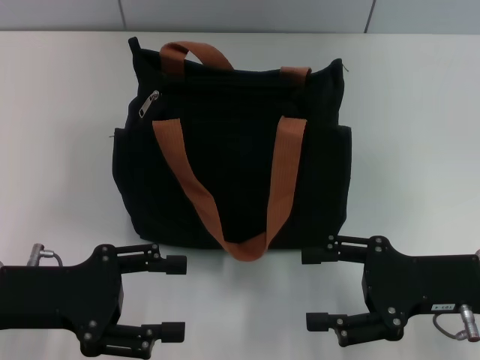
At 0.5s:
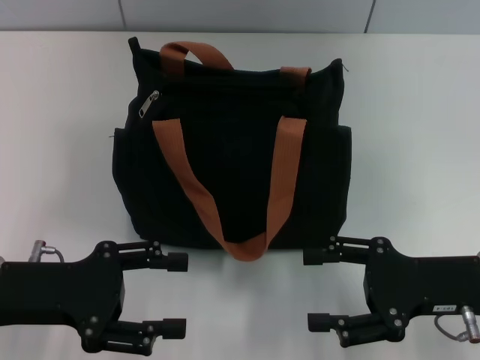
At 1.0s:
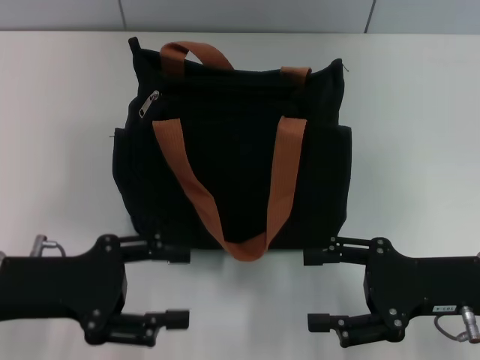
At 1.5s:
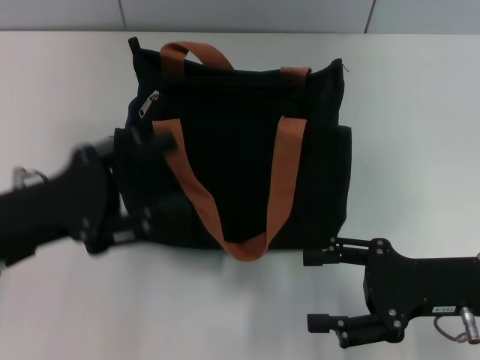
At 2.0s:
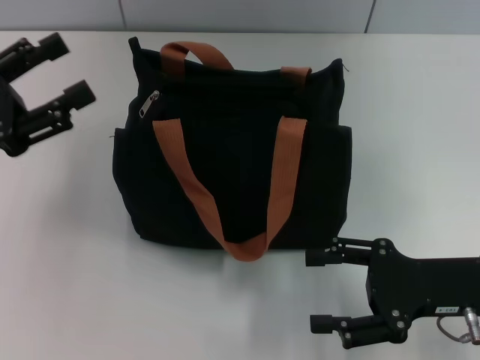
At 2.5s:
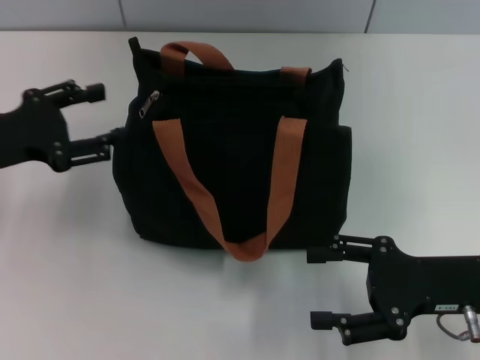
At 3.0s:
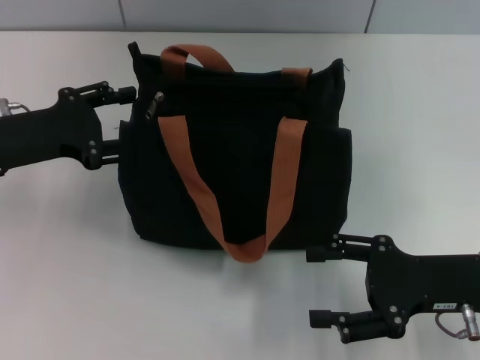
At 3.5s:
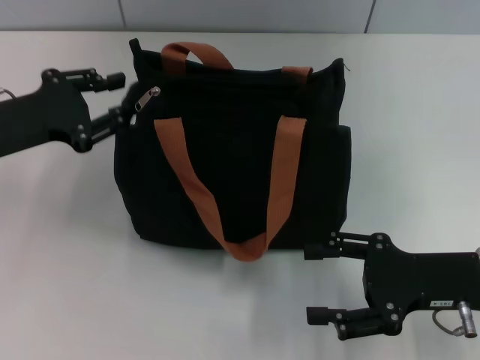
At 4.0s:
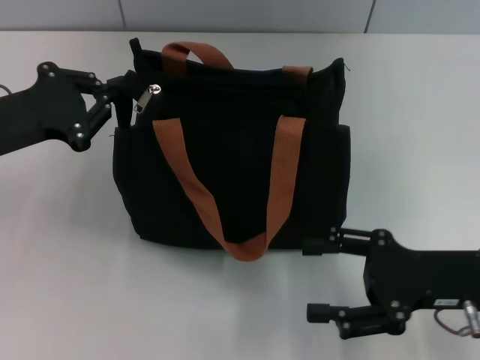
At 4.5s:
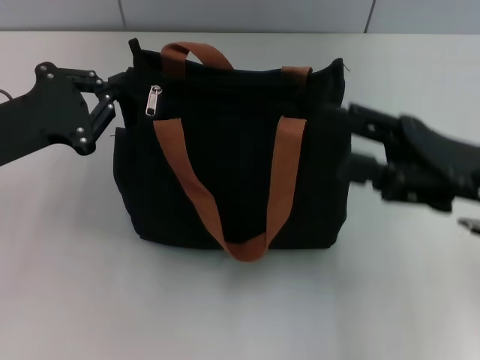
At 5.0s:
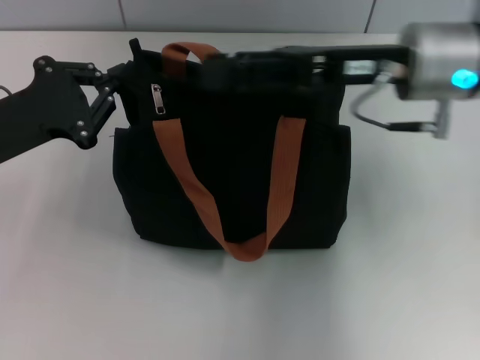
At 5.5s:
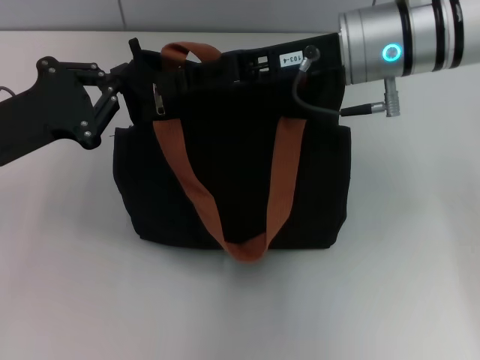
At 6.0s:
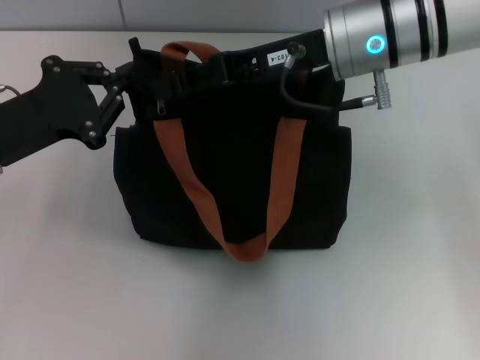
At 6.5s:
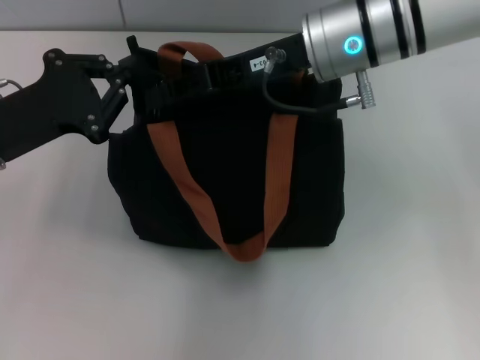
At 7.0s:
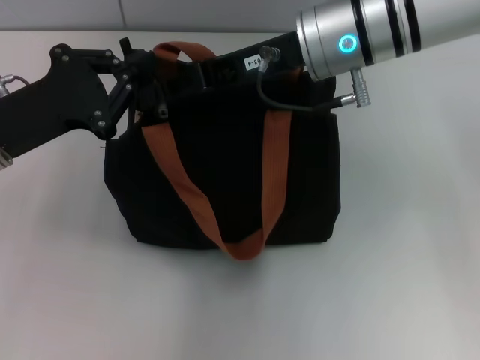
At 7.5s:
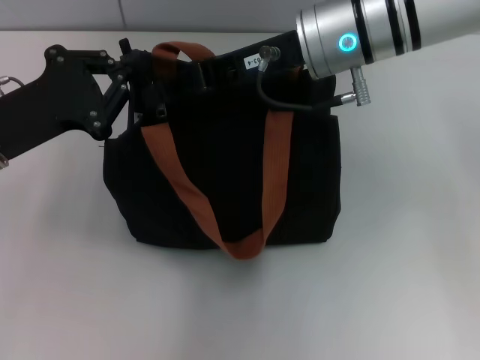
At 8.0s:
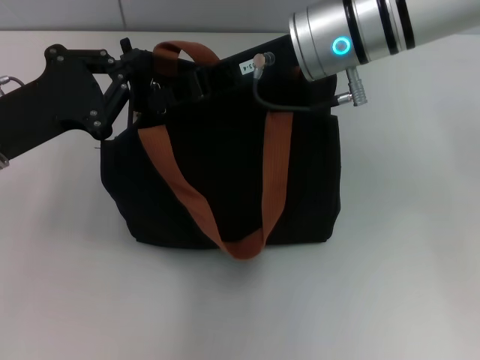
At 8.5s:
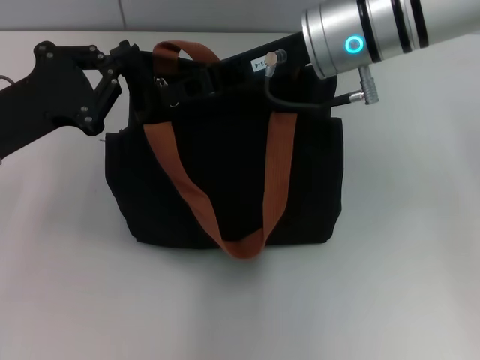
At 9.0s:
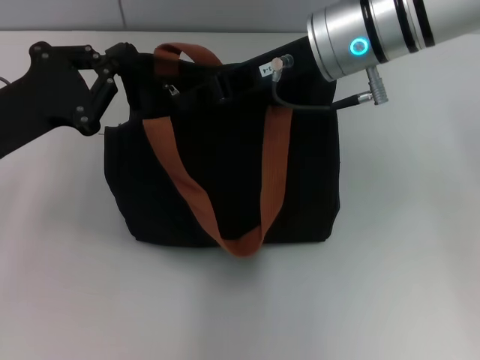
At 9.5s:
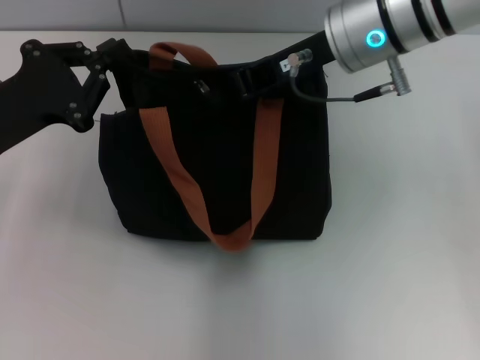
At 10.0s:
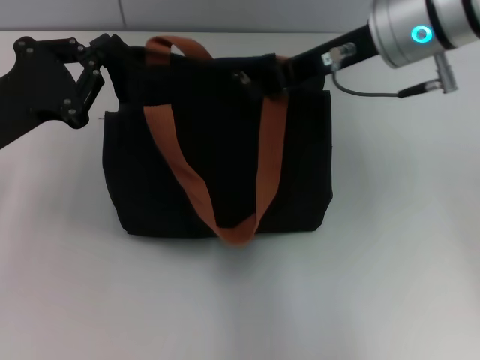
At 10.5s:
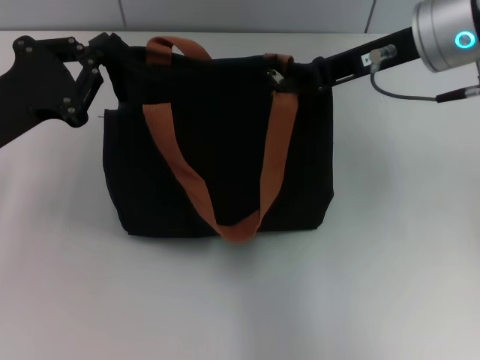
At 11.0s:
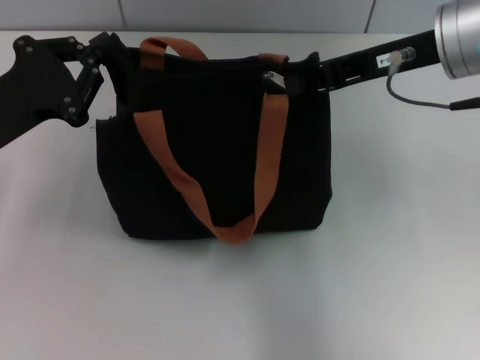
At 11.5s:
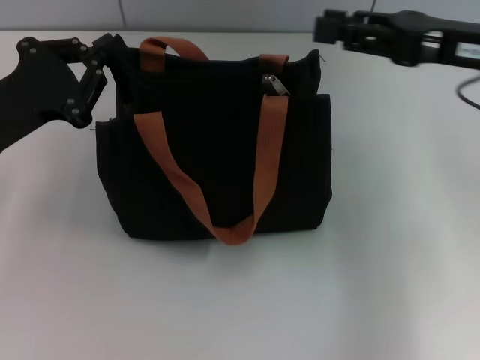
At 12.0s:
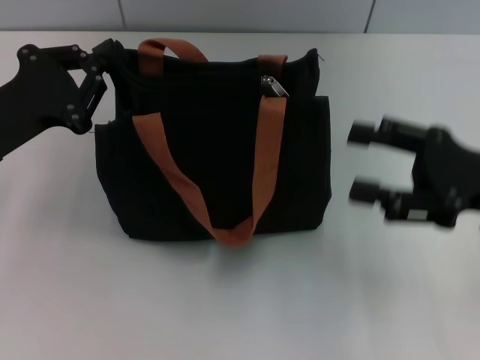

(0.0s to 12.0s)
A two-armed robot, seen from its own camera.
Step, 0.0s - 11.0s: Pull up the zipper with your right hand.
0.0s - 2.0s: The left gripper travels to the left and upward by roughly 5 cm.
2.0s - 4.0s: The left gripper moves about 5 cm, and closes.
4.0s - 6.0s: The right gripper shifts roughly 25 cm forward, to the left and upward, and closes up.
6.0s - 8.0s: The right gripper closes.
8.0s - 10.0s: The right gripper heads to the right, covering approximately 5 cm.
10.0s - 12.0s: The right gripper shifts approximately 20 cm to the right, backward and downward, and opens its fingers.

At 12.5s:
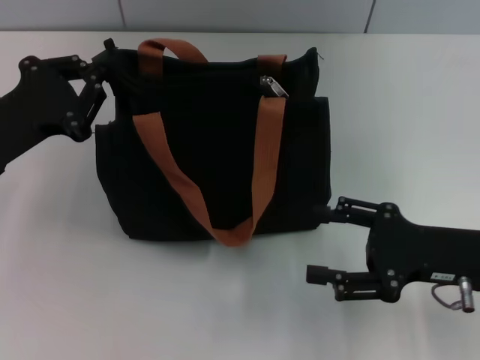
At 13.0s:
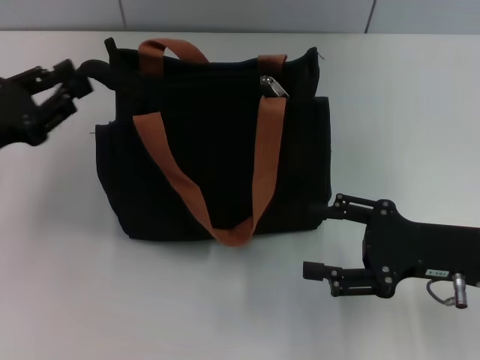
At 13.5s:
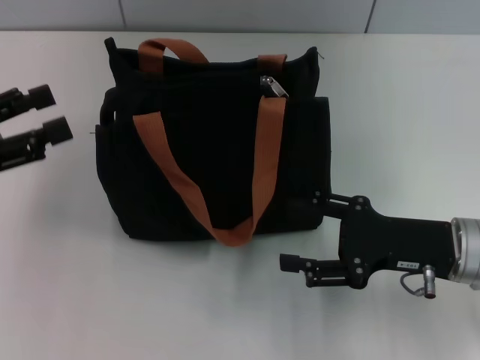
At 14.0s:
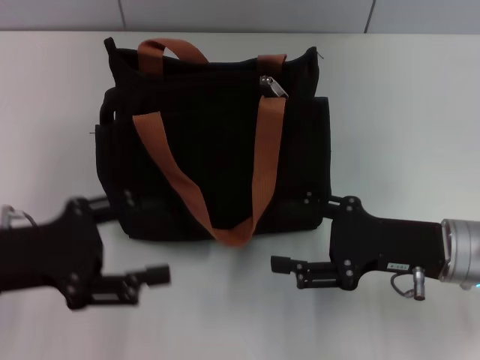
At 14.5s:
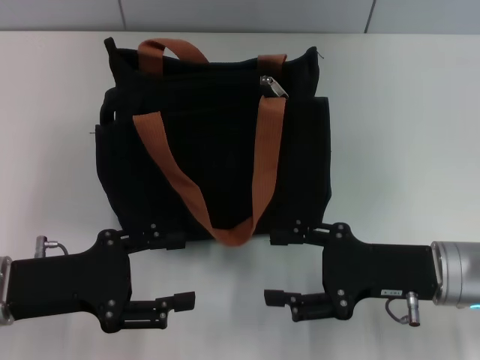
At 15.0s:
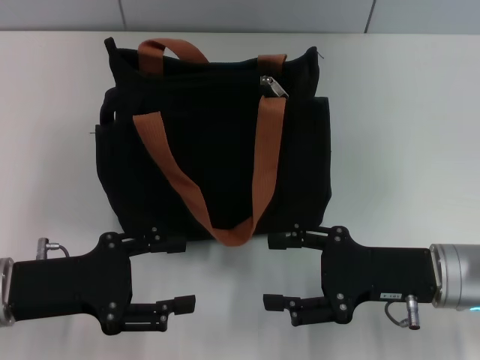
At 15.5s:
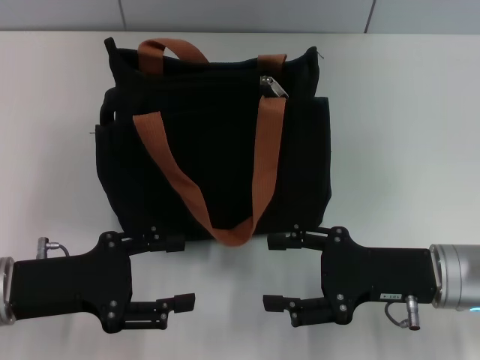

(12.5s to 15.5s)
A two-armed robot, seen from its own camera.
12.5s - 14.0s: The left gripper is displaced backward by approximately 5 cm, and opens.
14.0s - 15.5s: There are only small adjustments of the grippers.

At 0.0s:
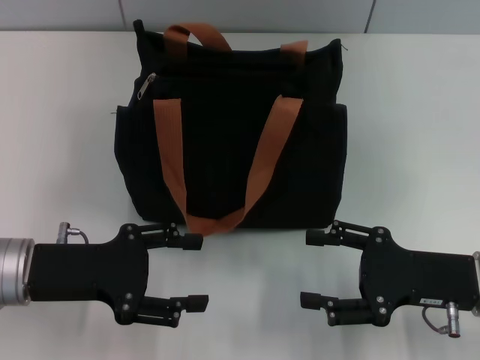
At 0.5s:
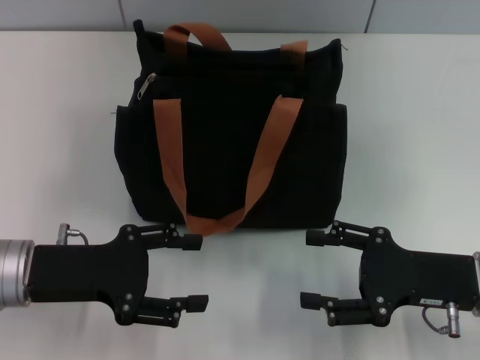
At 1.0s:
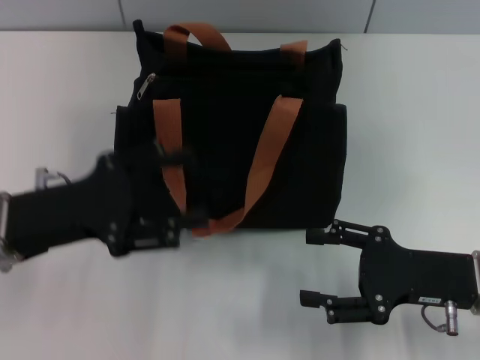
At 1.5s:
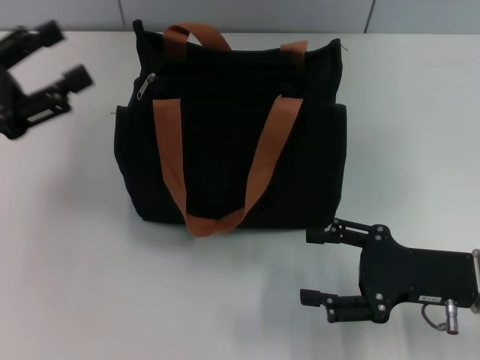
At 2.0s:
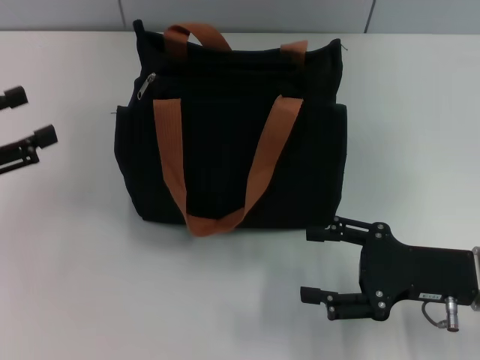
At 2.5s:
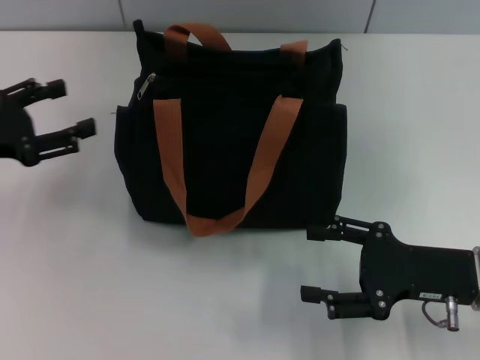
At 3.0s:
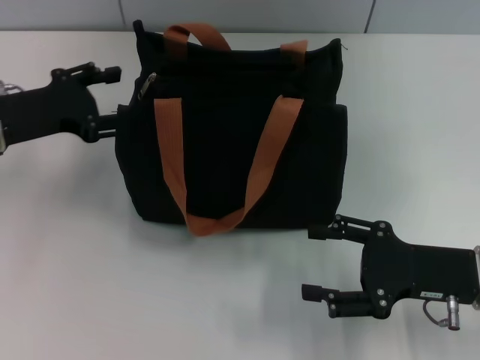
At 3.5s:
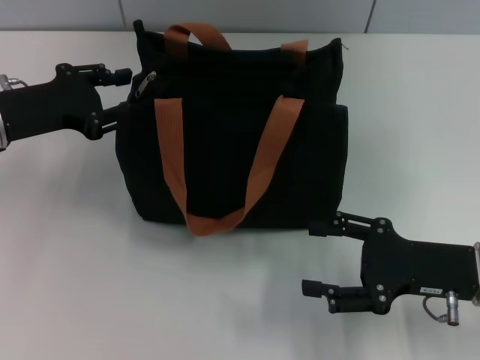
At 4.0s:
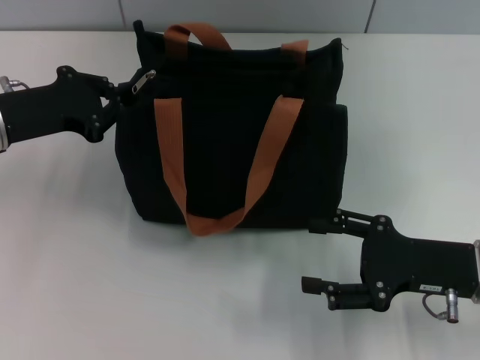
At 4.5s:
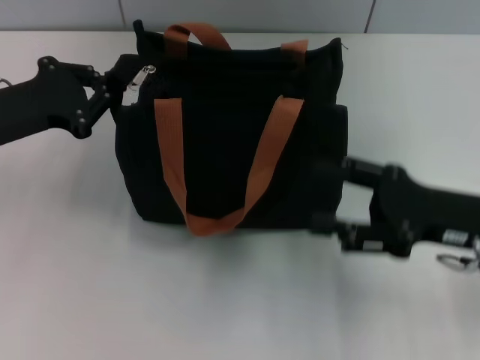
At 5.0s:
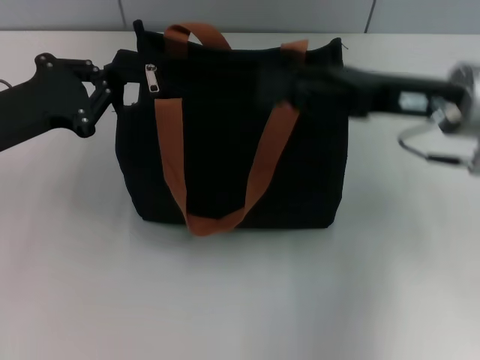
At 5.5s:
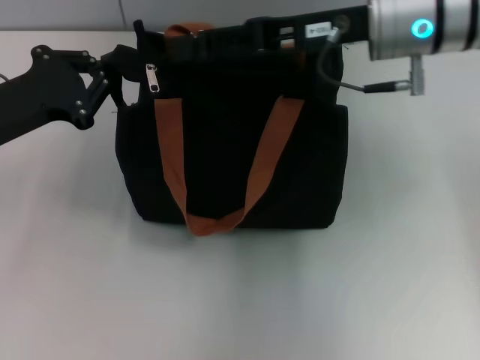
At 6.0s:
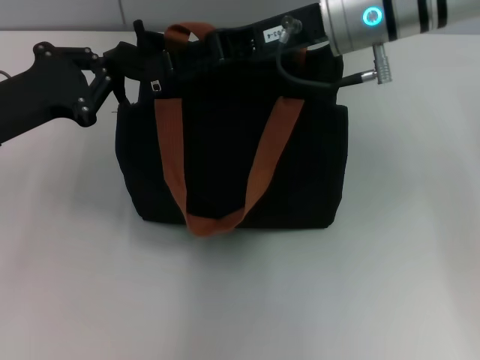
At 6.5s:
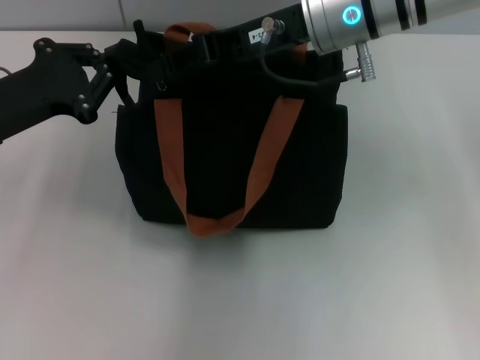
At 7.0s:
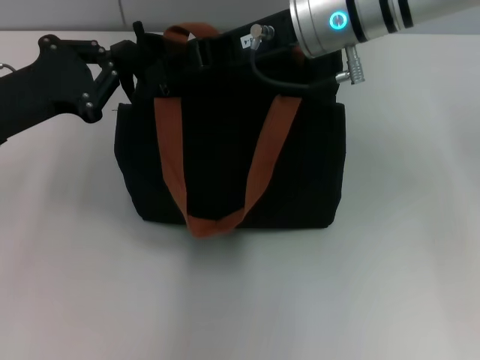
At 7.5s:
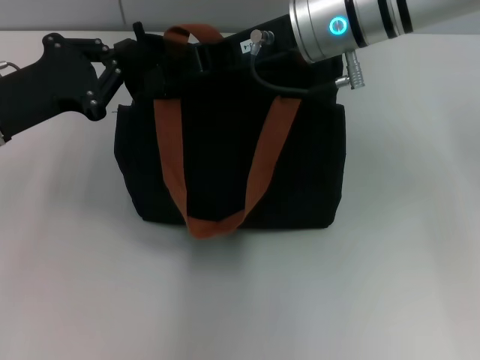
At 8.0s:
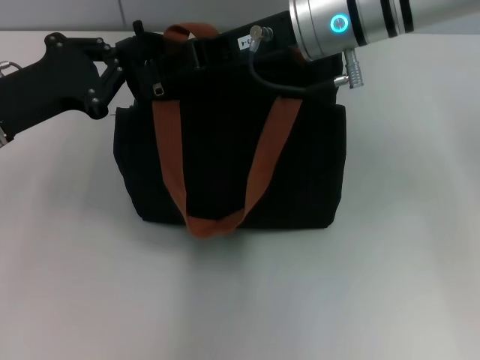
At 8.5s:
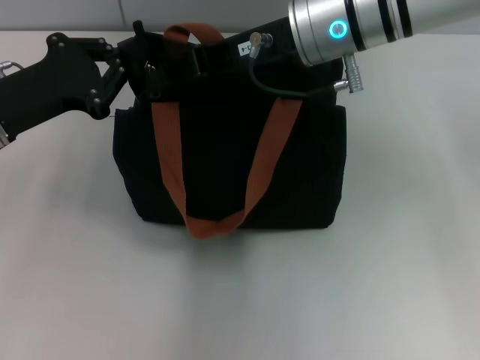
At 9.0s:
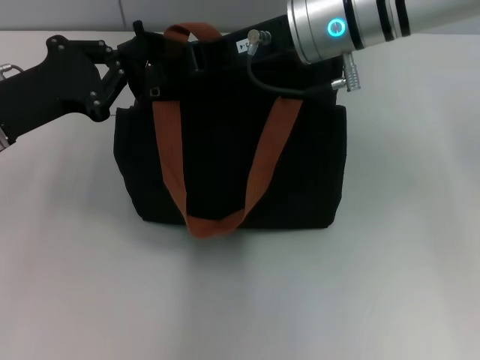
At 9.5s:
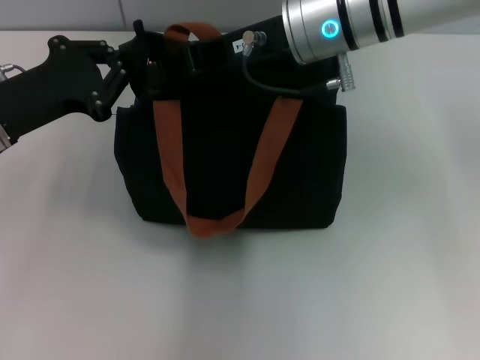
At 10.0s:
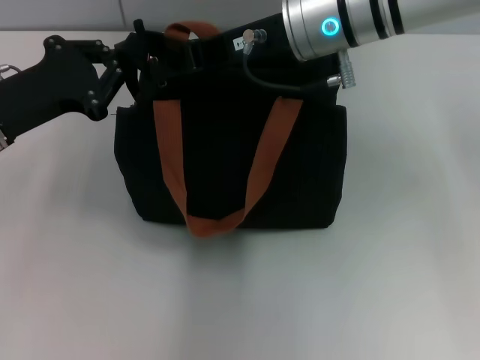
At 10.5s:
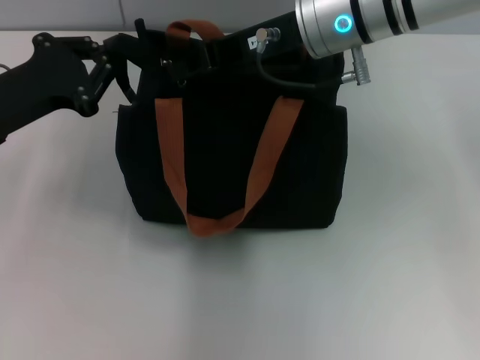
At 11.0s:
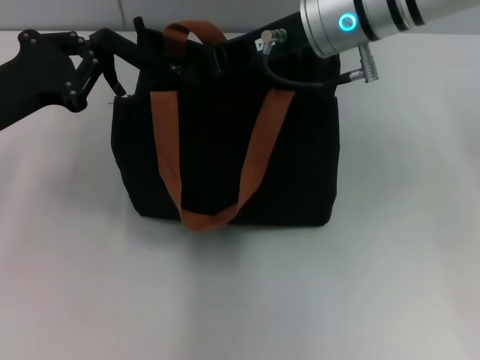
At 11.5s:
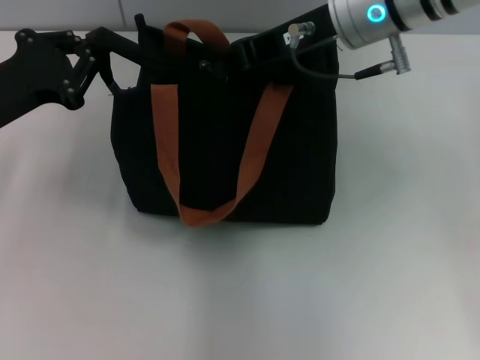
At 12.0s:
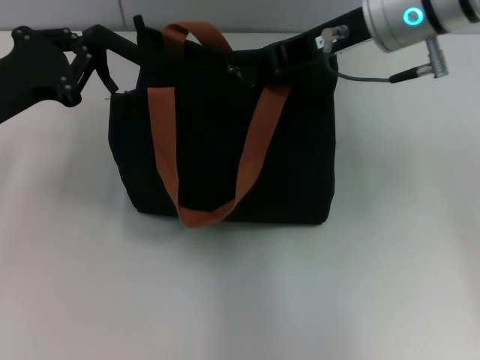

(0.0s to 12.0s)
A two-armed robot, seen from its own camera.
0.0s - 2.0s: The left gripper goes roughly 10 cm to the left.
2.0s - 4.0s: The left gripper goes some 10 cm forward and to the right, and closes up.
4.0s - 6.0s: The right gripper goes roughly 25 cm upward, forward and to the left.
6.0s - 8.0s: The right gripper closes its fingers.
8.0s - 10.0s: The right gripper closes up.
10.0s - 12.0s: The right gripper heads to the right, covering some 5 cm.
